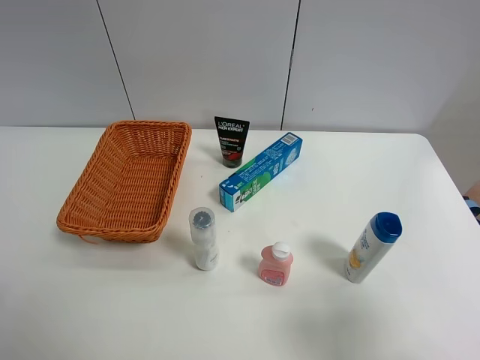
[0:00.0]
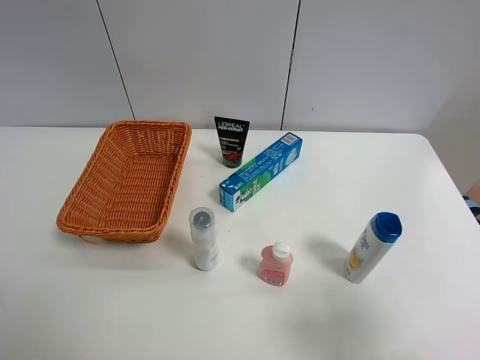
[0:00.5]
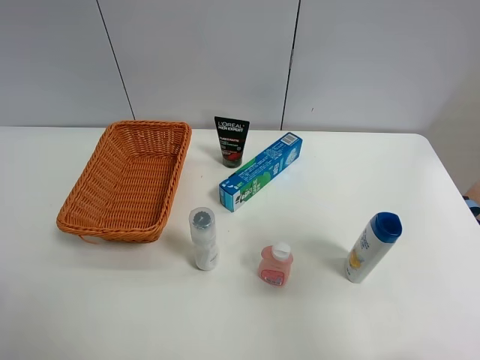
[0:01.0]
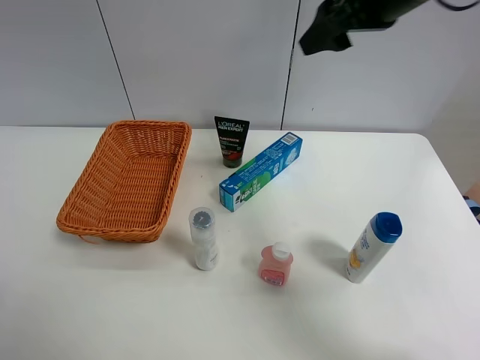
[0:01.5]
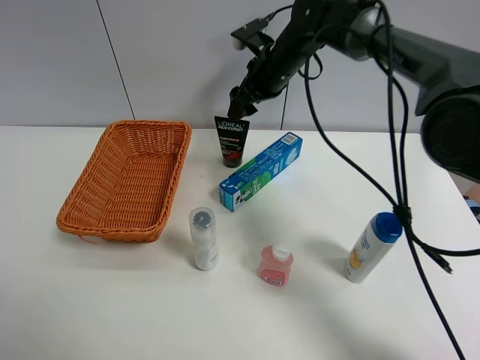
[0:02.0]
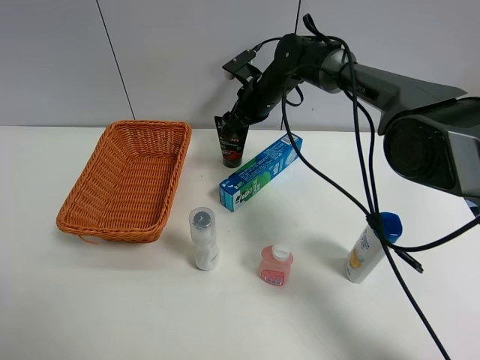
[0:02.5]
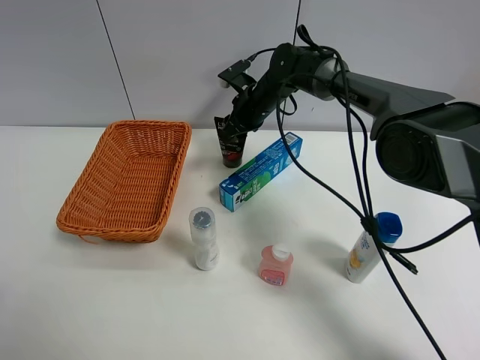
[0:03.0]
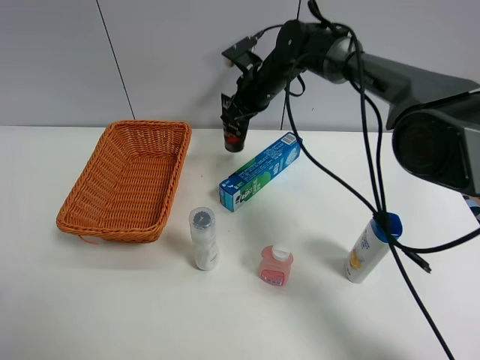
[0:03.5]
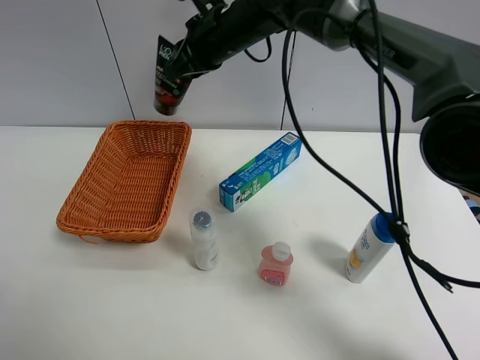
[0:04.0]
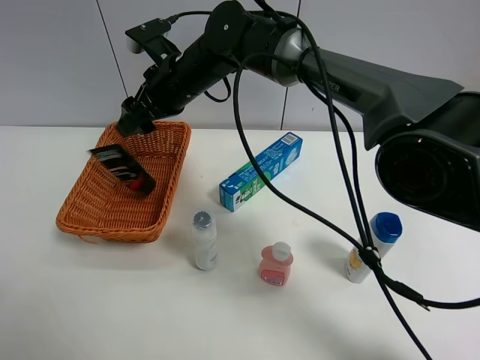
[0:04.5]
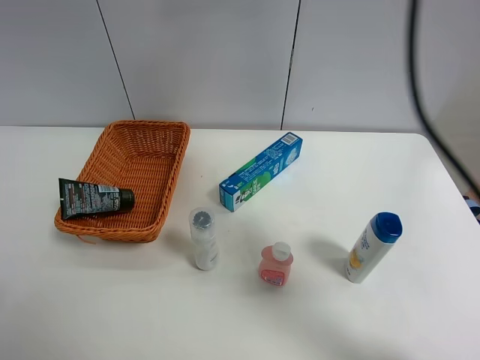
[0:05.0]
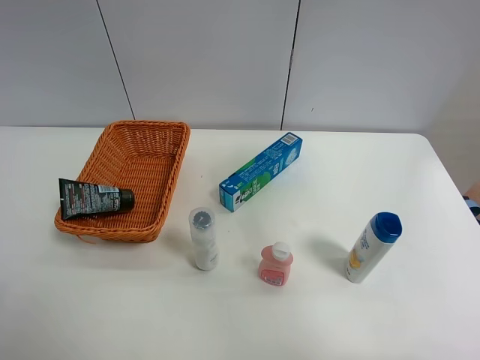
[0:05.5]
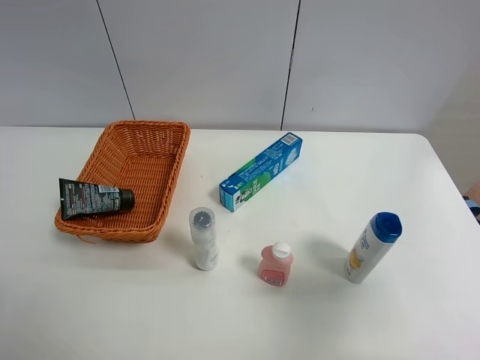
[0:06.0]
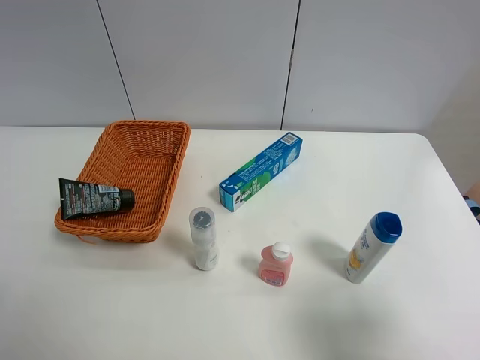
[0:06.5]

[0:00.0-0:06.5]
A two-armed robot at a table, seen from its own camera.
Task of the whole recording: Place the object closest to the toothpaste in the basket.
Step, 0:00.0 to 0:03.0: Grasp the soft facial cleanser with right gripper.
Step, 0:03.5 to 0:04.5: Place the soft facial cleanser in the basket with right gripper.
0:00.0 to 0:02.0: The right gripper is displaced forward and to the left by approximately 50 cm.
0:02.0 to 0:04.5: The right gripper moves to the left and backward, about 15 cm, and closes, then reopens.
0:04.5 to 0:06.5: The right gripper goes roughly 50 cm backward and to the right.
